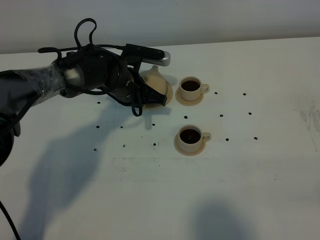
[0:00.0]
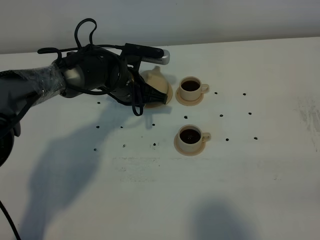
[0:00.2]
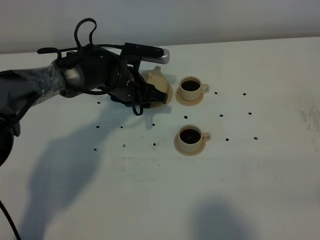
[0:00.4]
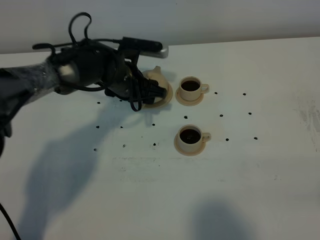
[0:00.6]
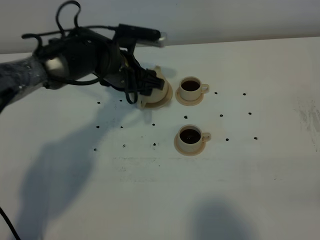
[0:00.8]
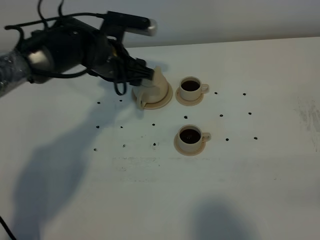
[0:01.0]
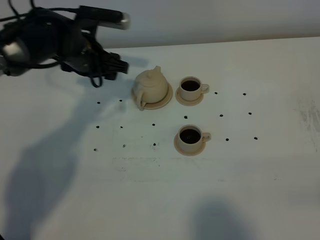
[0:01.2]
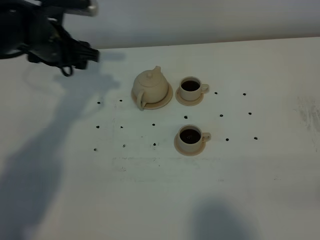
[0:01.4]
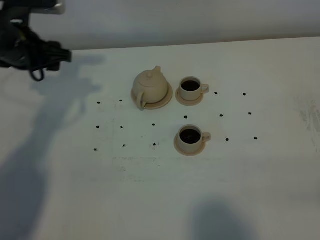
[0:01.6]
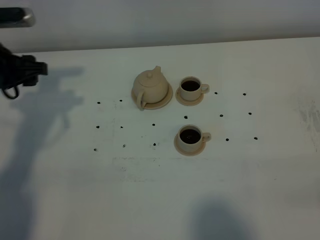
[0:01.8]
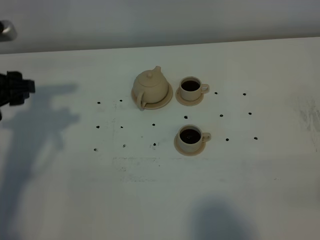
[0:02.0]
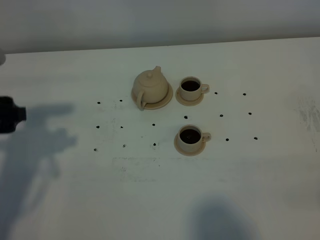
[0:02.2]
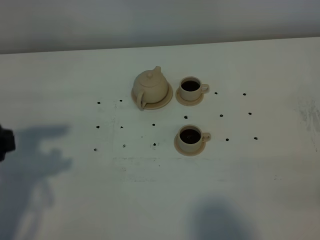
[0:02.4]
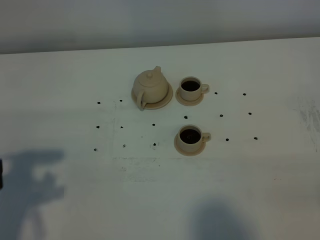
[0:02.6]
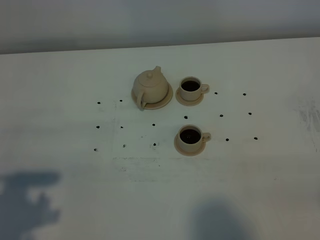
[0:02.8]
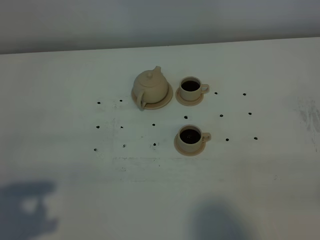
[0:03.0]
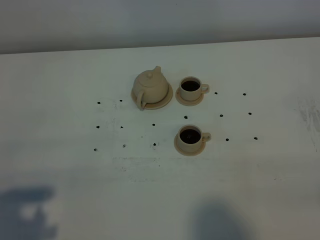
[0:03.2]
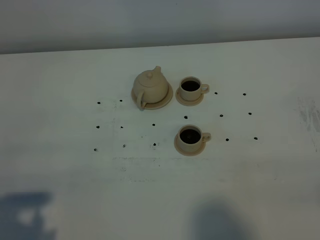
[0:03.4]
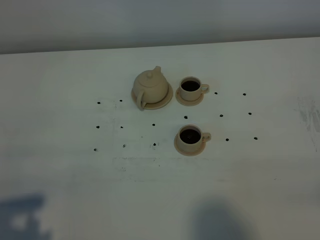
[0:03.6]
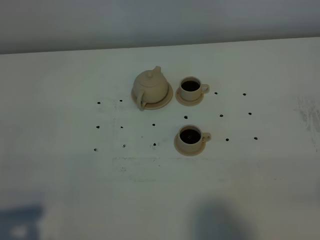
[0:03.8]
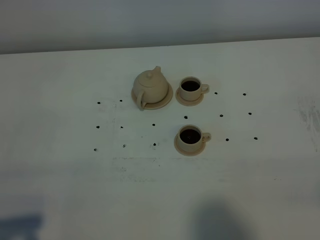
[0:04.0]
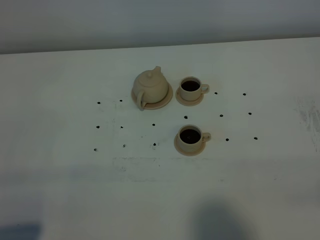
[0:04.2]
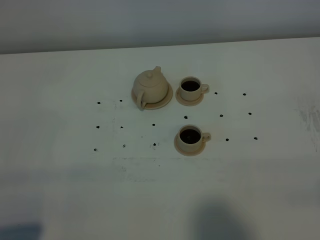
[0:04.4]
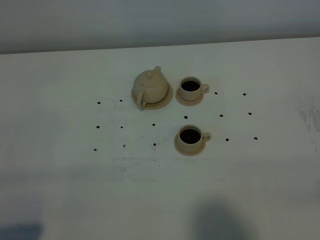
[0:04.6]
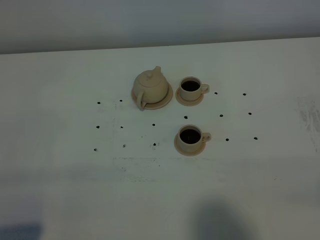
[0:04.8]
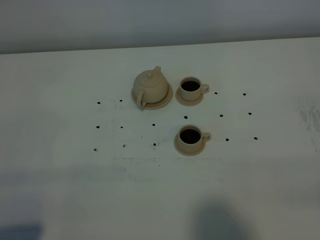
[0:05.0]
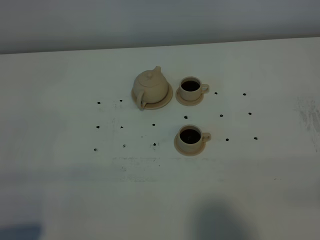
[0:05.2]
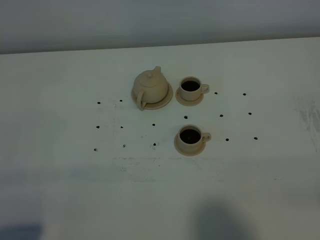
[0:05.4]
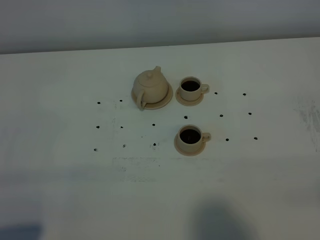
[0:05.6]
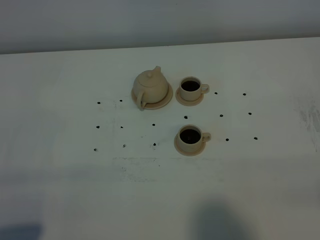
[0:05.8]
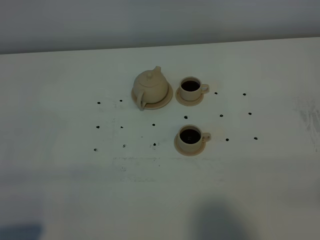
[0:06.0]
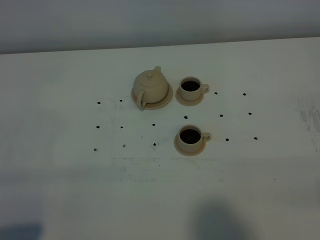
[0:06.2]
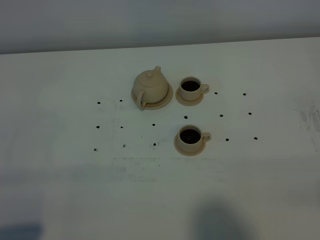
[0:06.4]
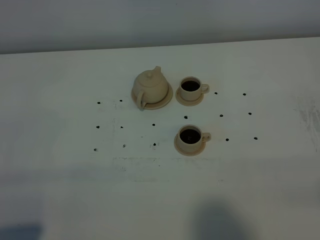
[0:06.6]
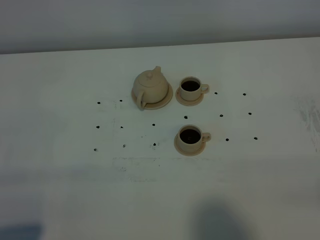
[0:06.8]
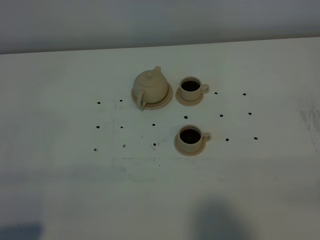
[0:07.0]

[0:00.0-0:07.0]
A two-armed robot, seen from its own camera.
Task of the whole recording: grasp the brown teapot and pour the tea into the two brown teacups one by one, put the brown teapot back in its original place.
0:00.0 to 0:01.4: The left gripper goes about 15 cm to the left and upward, and opens.
0:01.4 to 0:02.8: The left gripper travels backward by roughly 35 cm.
0:02.8 to 0:04.2: The left gripper goes roughly 10 cm backward.
0:04.2 to 0:07.0: Neither gripper changes place.

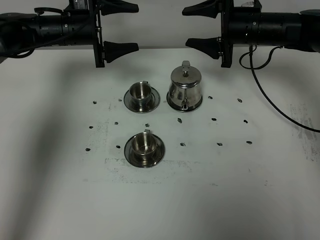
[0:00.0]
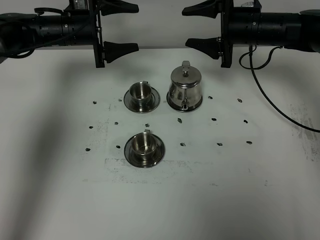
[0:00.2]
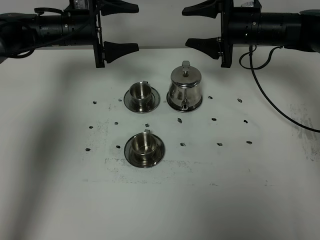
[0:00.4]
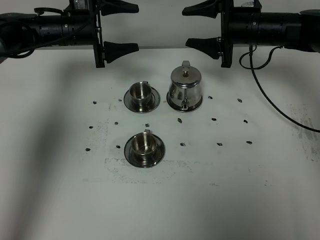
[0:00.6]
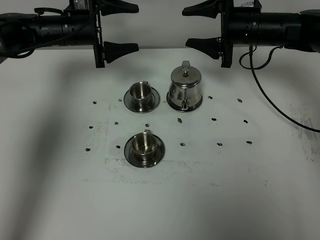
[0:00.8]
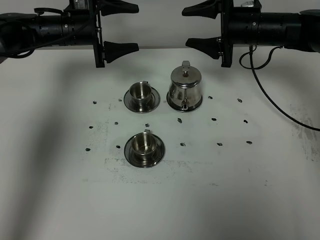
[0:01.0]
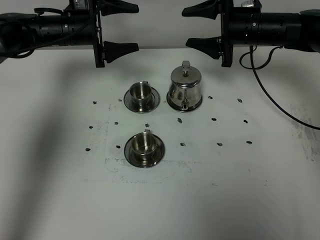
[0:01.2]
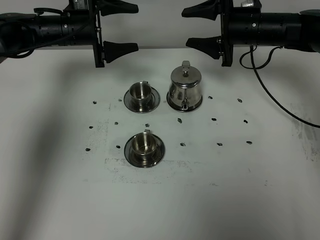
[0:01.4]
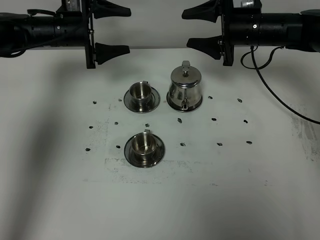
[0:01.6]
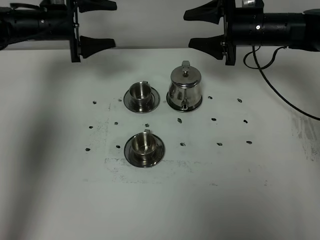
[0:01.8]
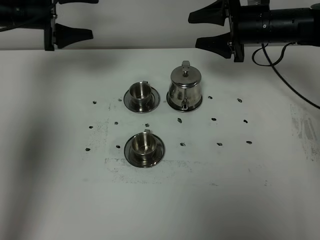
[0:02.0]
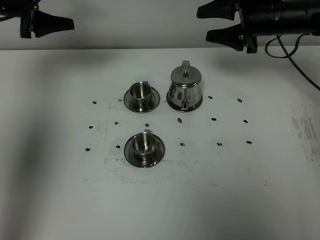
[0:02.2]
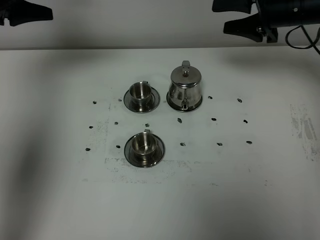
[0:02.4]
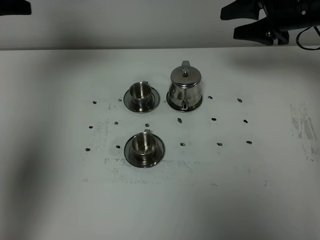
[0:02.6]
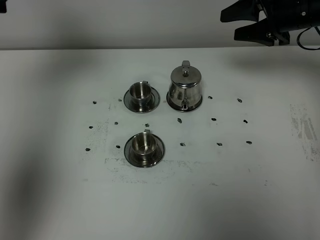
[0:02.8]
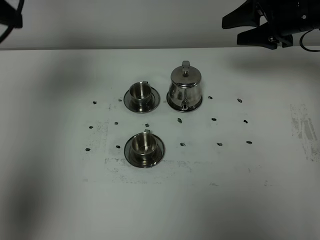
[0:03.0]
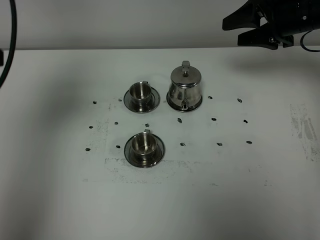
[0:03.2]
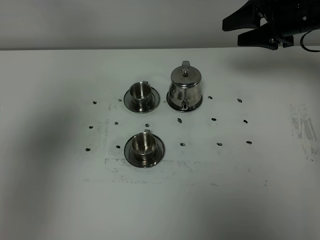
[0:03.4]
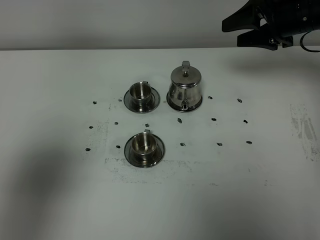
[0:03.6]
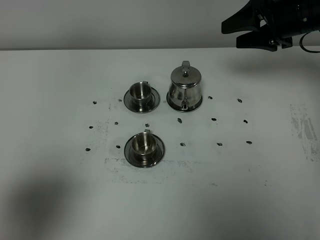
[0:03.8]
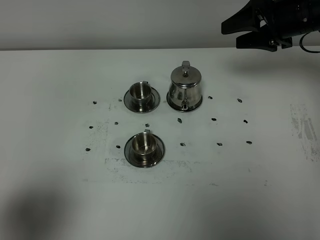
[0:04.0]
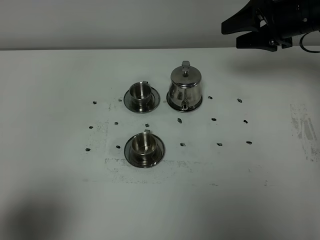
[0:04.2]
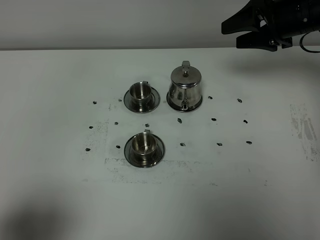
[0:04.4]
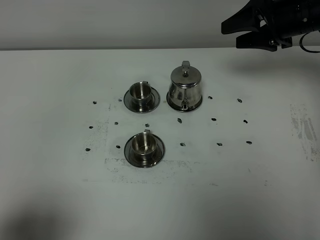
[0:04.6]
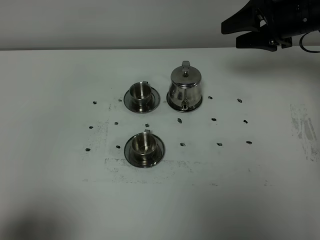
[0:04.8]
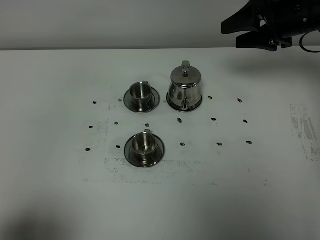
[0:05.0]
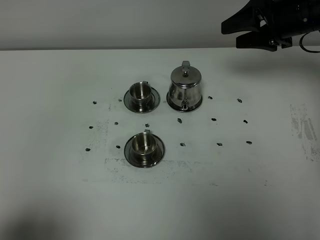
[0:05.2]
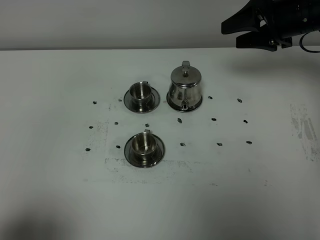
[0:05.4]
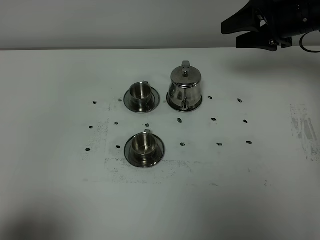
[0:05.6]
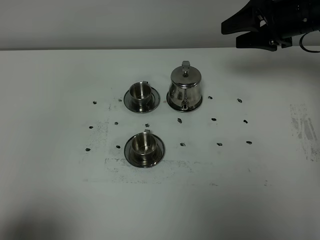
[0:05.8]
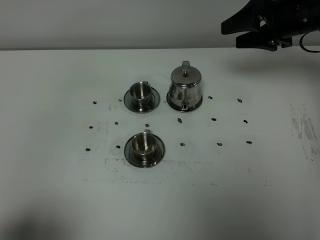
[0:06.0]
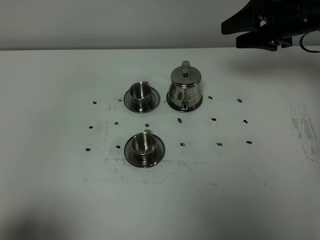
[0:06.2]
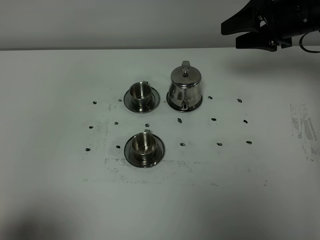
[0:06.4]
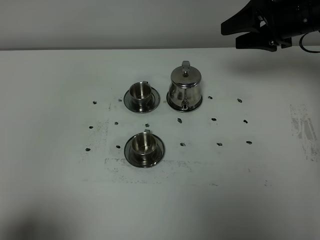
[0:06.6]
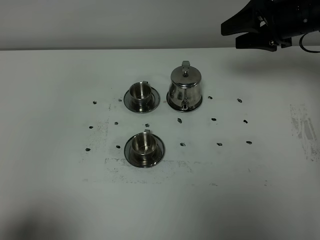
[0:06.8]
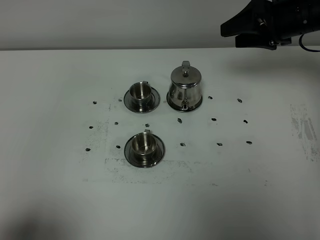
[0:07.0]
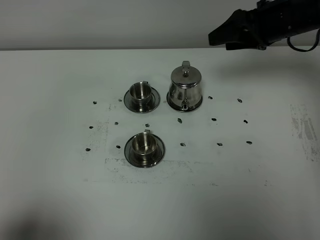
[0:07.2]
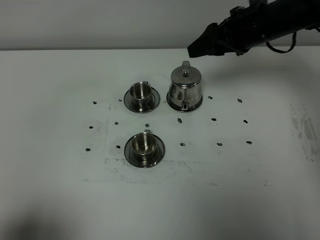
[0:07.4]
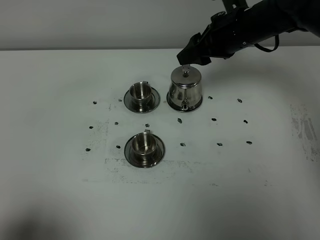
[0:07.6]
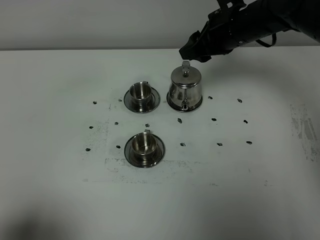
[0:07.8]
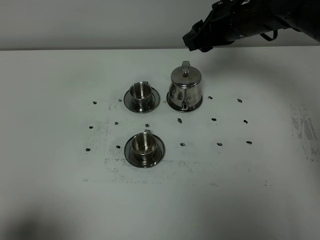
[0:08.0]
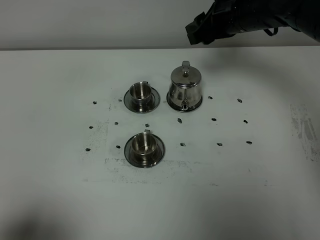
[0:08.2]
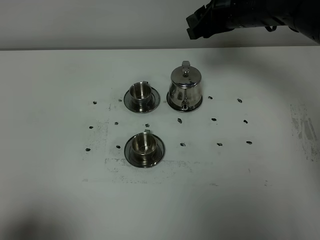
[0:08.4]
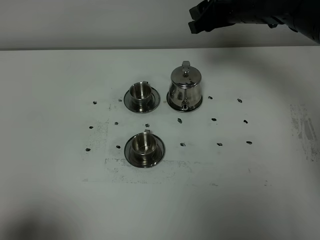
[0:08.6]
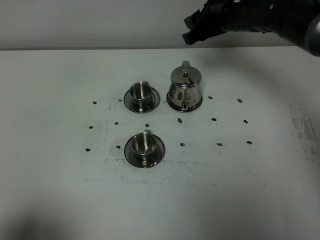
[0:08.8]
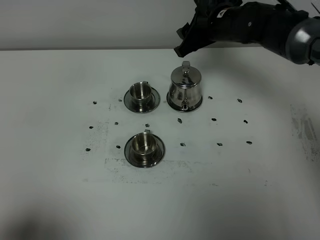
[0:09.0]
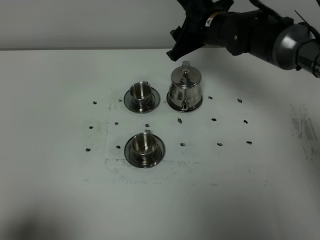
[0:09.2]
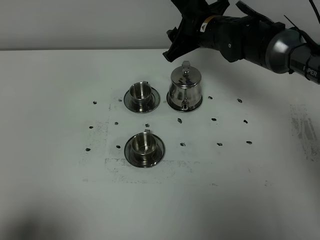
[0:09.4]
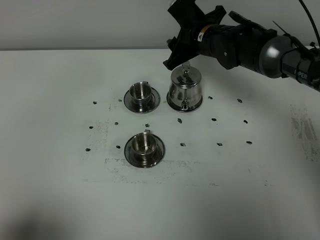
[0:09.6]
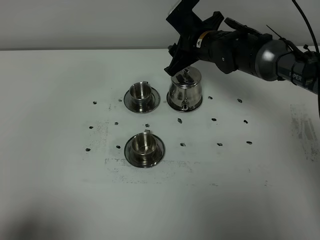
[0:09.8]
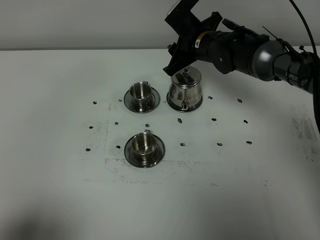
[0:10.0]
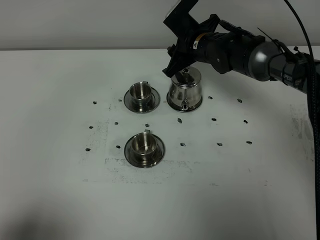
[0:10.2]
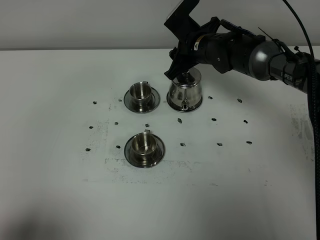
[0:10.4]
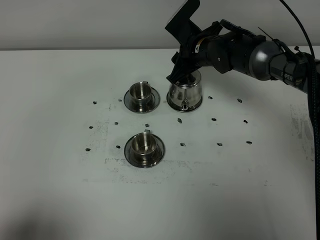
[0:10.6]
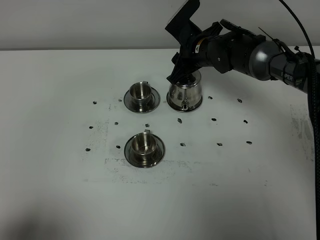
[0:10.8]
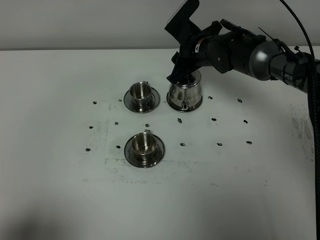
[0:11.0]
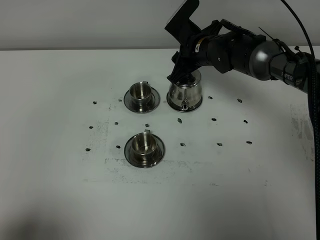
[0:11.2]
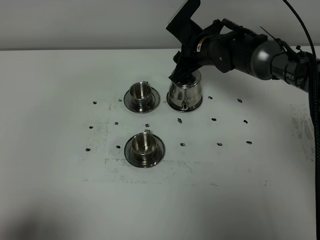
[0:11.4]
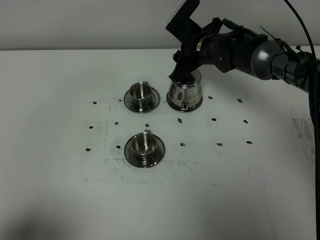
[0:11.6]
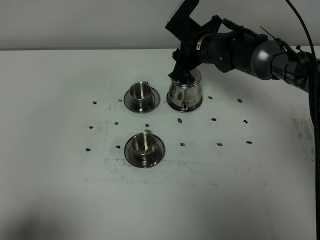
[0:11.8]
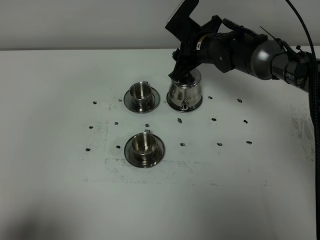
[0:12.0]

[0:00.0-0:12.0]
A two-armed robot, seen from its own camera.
Task of the whole recording: grasp the stainless steel teapot and pour the tea into the two stainless steel teacups one by one, put the stainless steel teapot back in its original place.
0:00.0 to 0:01.6: There are only small adjustments of the grippers.
0:01.6 to 0:03.0: The left gripper moves upward, backward and to the left, roughly 30 cm. Meanwhile the right gripper shifts roughly 10 cm to the right and upward.
0:03.0 to 0:04.4: The left gripper shifts some 35 cm backward and downward.
0:06.0 to 0:07.6: The right gripper heads to the left, covering roughly 10 cm.
0:07.6 to 0:09.0: The right gripper changes place by some 5 cm.
0:09.0 to 0:10.4: The right gripper goes roughly 5 cm downward.
0:10.4 to 0:12.0: The two grippers keep their place.

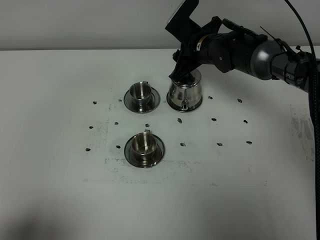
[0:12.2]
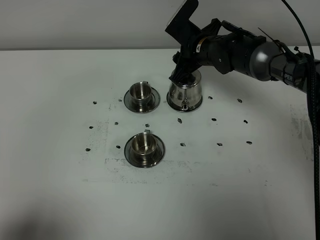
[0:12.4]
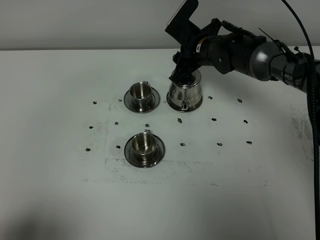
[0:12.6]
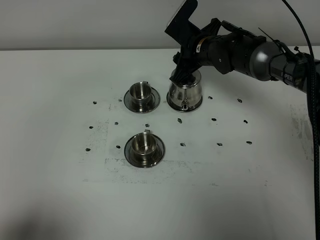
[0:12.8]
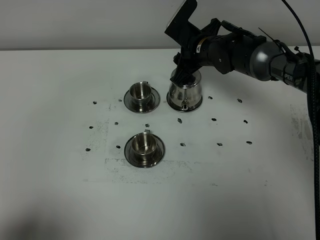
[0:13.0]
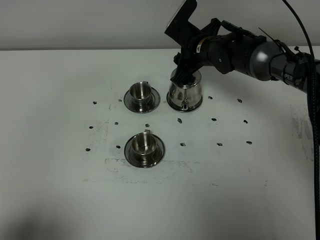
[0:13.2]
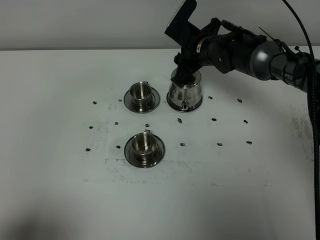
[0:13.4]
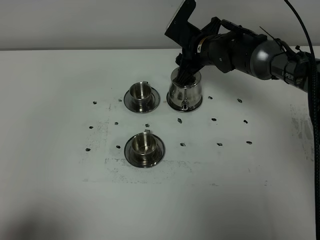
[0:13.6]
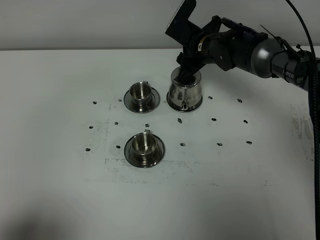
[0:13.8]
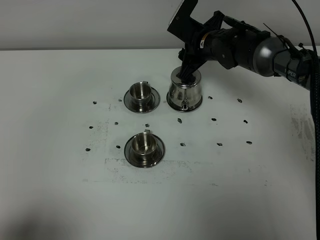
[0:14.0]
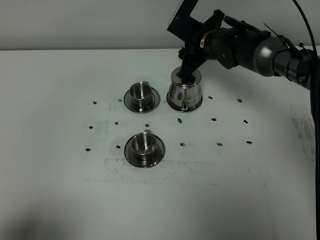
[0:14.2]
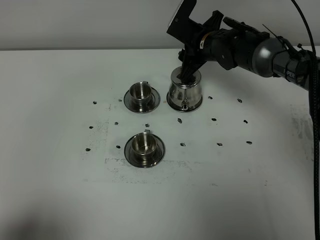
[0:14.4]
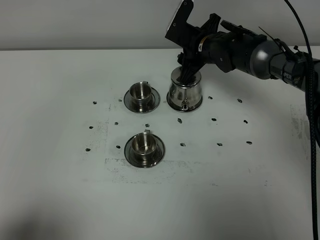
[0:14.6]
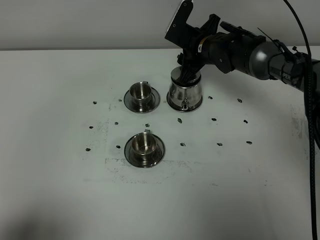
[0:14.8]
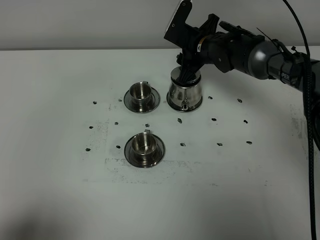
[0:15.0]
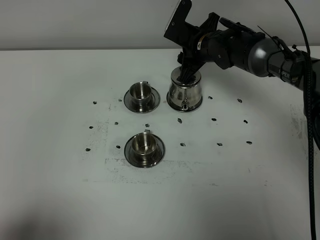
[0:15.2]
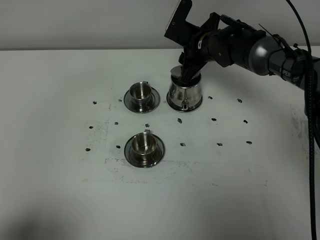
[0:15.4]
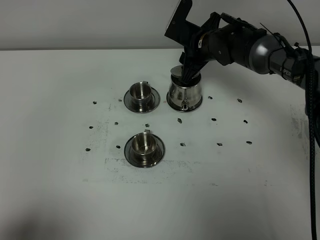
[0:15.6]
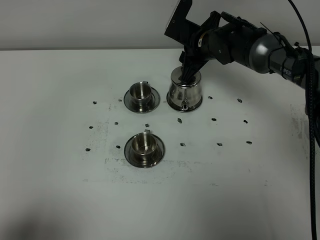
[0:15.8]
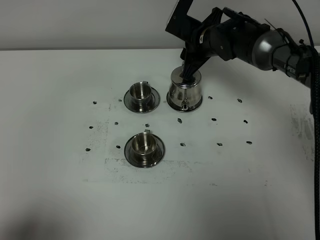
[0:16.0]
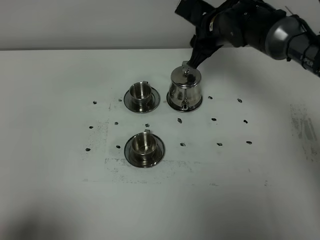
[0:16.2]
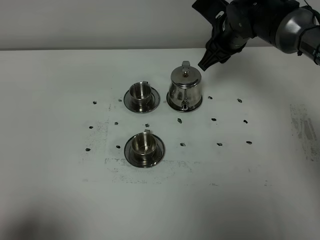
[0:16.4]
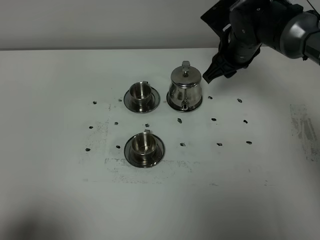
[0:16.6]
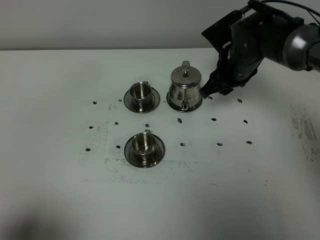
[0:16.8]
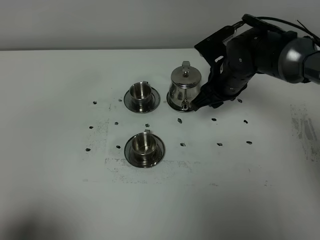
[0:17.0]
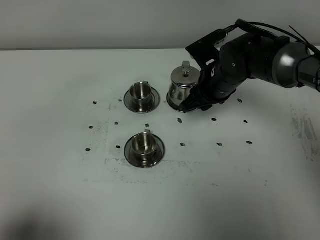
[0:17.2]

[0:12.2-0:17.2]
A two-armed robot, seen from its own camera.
Task of the whole recording: grasp the stainless steel teapot and pour the tea into the two stainless steel teacups one by one, put the stainless steel teapot back in its original place.
0:12.2 to 0:15.6: There are only small adjustments of the grippers.
0:15.6 to 0:17.2: The right gripper moves backward, roughly 10 cm.
